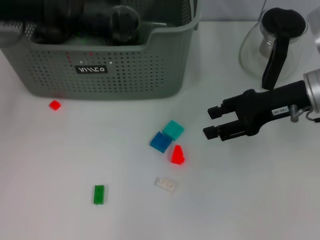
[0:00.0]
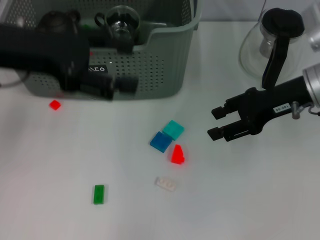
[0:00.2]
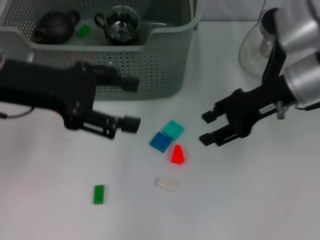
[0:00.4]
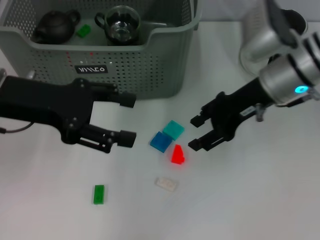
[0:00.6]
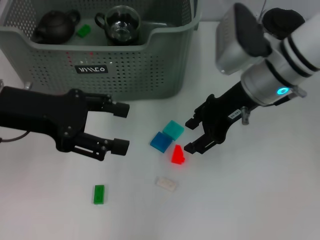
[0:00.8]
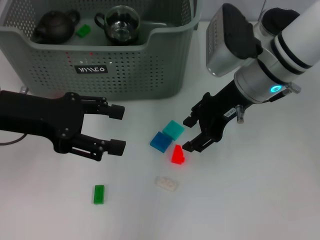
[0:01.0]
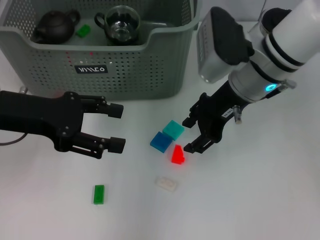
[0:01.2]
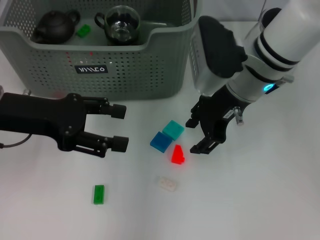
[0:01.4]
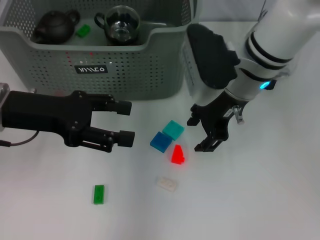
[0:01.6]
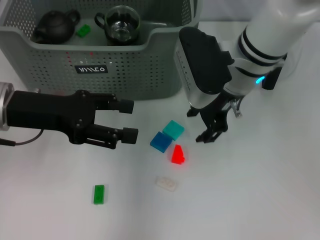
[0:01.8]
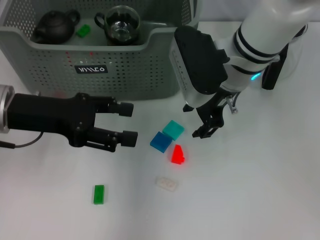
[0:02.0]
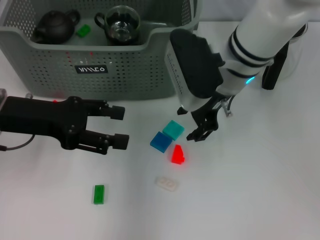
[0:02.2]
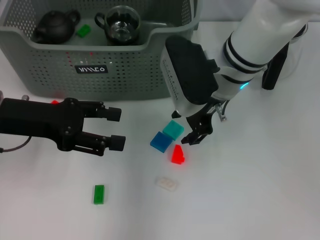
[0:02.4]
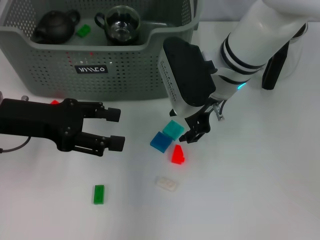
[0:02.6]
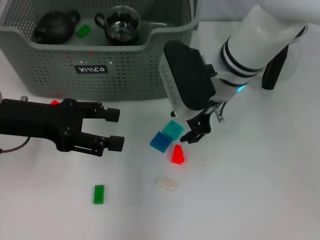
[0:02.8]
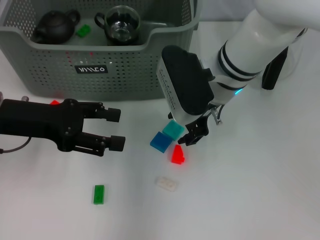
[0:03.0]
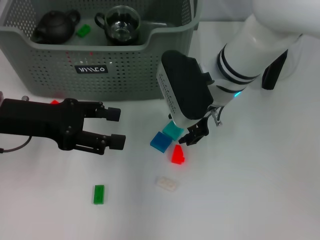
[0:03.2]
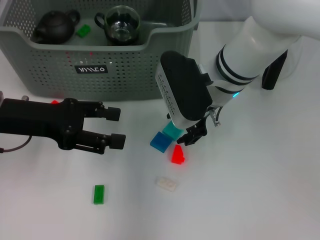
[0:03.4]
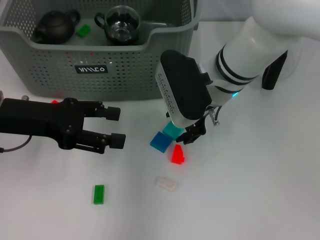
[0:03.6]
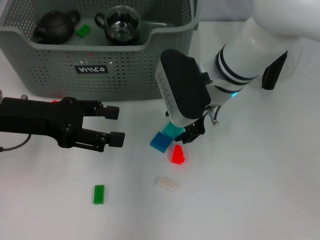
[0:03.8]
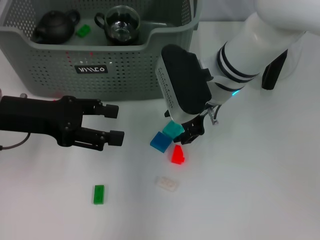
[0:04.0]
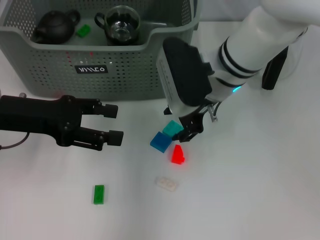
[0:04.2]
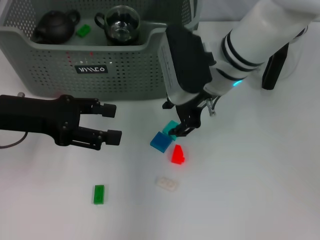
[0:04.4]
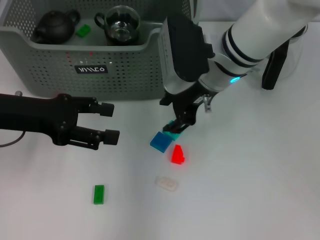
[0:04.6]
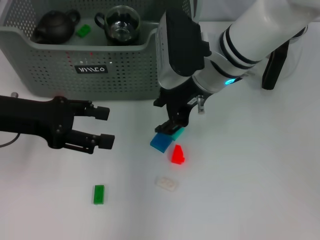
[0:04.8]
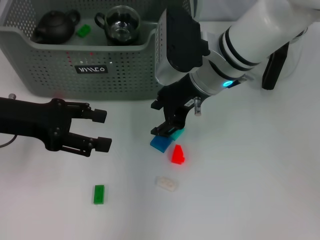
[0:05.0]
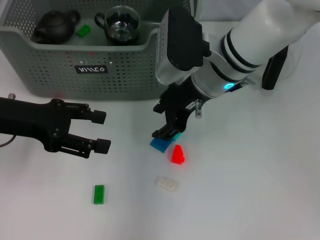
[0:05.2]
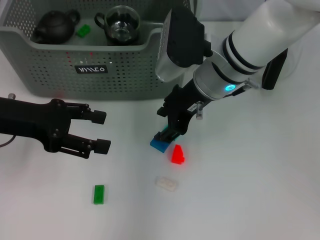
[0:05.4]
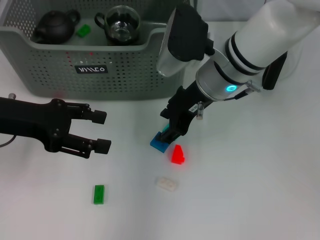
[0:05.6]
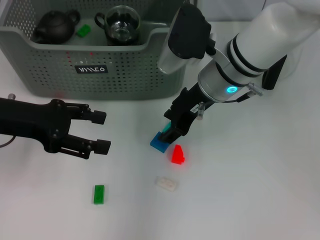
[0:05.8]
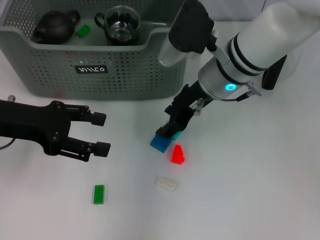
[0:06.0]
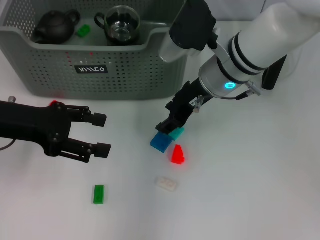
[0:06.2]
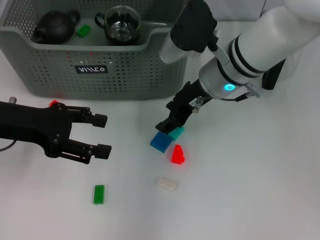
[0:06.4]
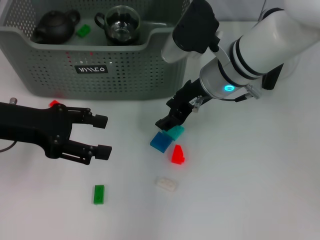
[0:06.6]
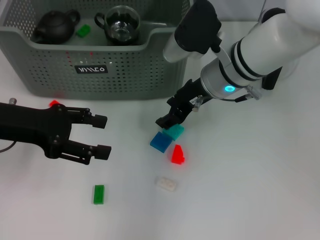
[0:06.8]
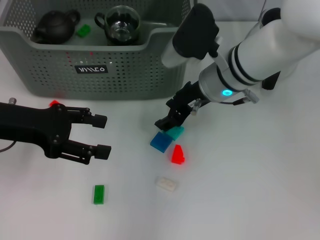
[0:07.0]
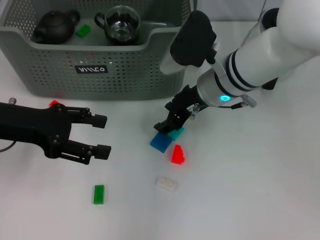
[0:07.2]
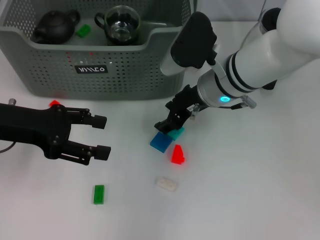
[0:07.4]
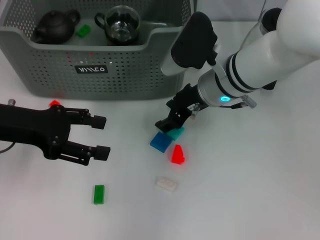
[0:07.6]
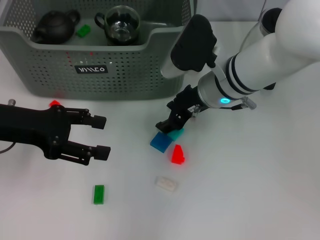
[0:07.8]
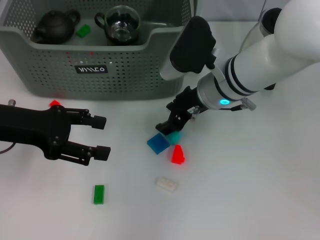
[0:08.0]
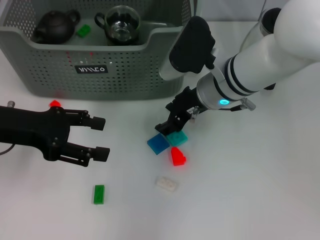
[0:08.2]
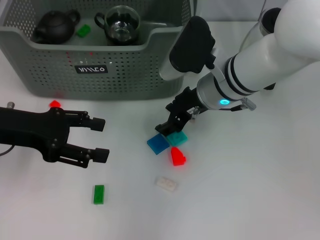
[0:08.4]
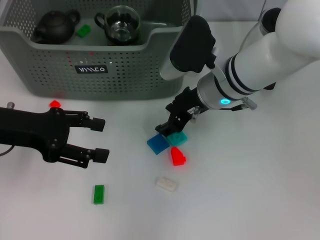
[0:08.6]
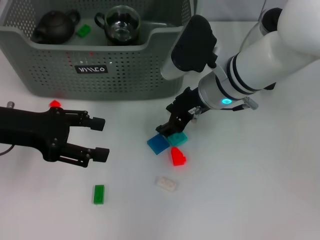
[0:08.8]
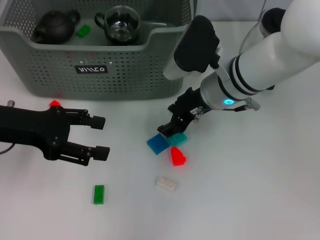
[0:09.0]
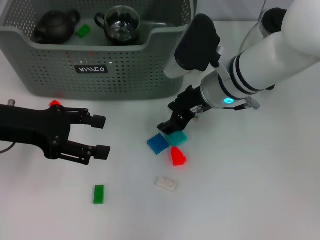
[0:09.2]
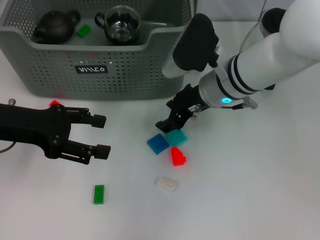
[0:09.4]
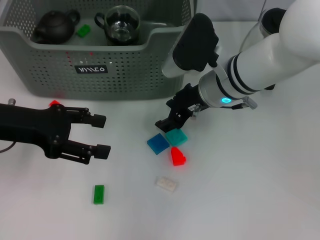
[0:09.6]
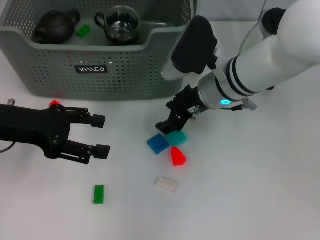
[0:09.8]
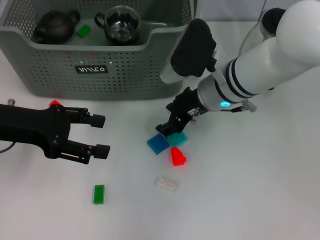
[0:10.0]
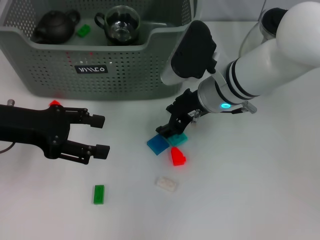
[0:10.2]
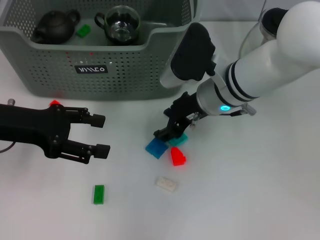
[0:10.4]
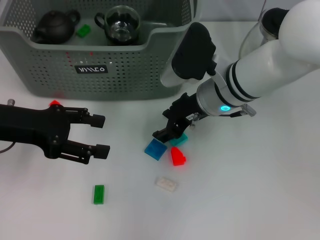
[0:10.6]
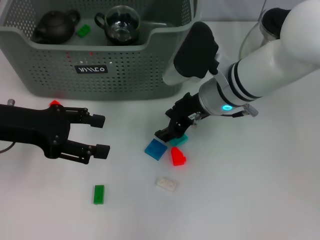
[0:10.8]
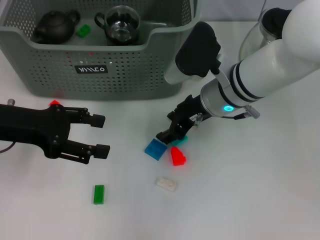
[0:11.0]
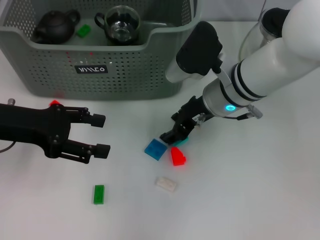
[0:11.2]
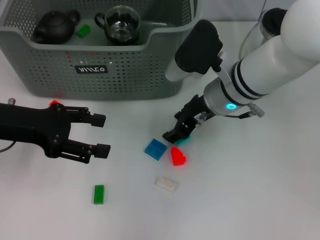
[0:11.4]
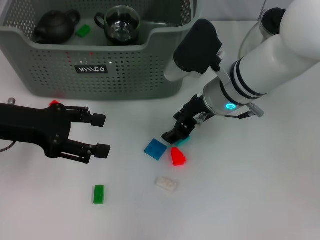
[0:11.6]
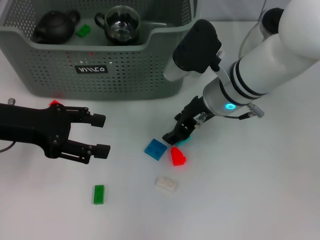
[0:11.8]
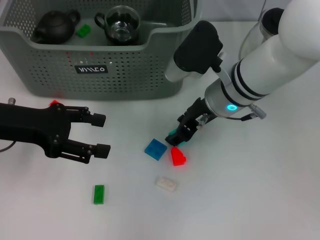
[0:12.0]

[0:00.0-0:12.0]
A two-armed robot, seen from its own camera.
Task of the whole recording: pick up the teacup on the table and place it into the storage bin, pick up the block on the table and place it into the storage bin.
0:00.0 to 0:01.6: The right gripper is displaced to the left by roughly 15 cm. Meanwhile the left gripper travels downward by roughly 10 cm.
0:01.6 to 0:04.4: The grippers stay close to where they were, moving slightly.
0:06.0 to 0:07.6: The grippers stay close to where they were, moving slightly.
0:07.6 to 0:10.4: Neither gripper changes place.
0:10.4 to 0:12.0: The grippers make only small movements.

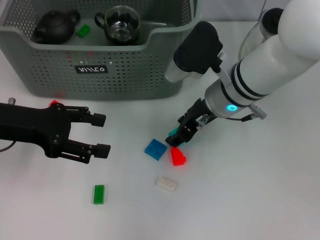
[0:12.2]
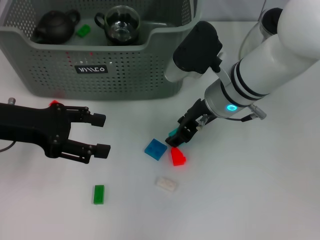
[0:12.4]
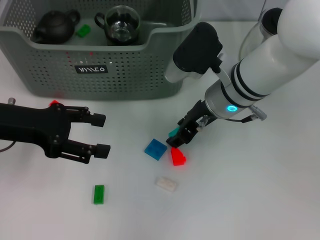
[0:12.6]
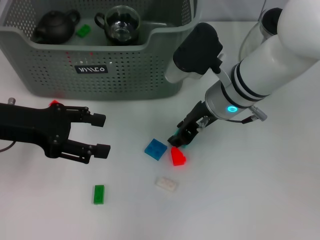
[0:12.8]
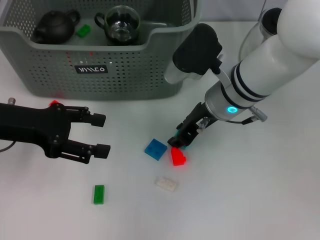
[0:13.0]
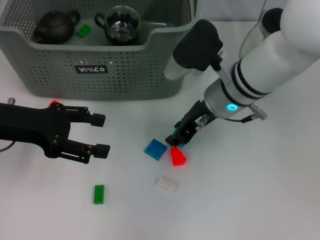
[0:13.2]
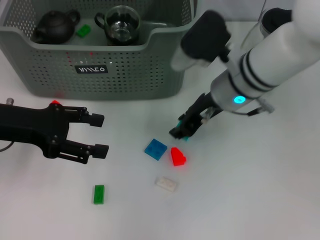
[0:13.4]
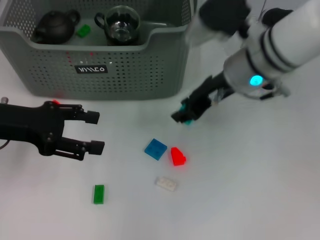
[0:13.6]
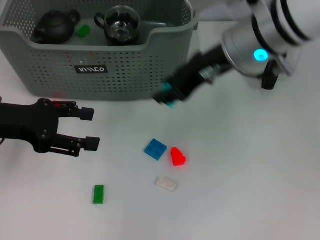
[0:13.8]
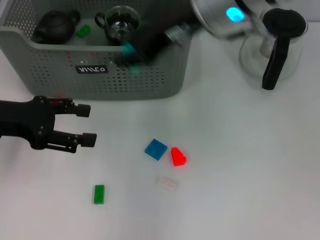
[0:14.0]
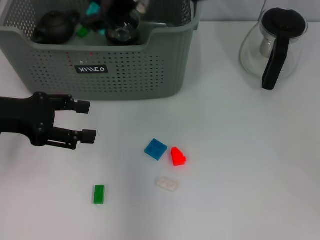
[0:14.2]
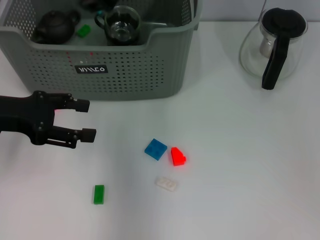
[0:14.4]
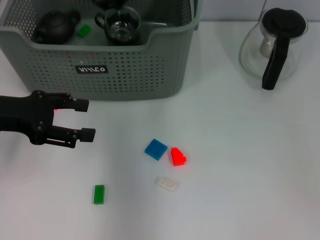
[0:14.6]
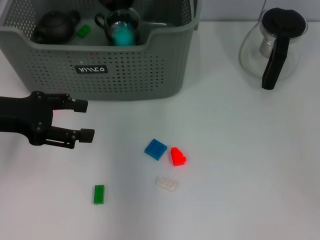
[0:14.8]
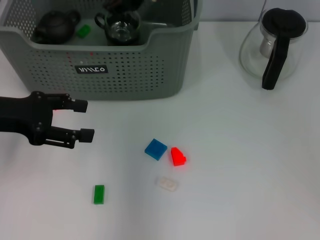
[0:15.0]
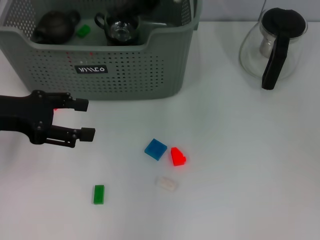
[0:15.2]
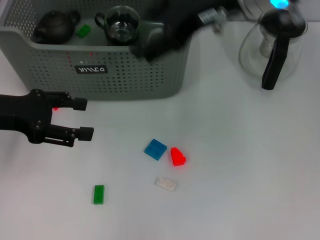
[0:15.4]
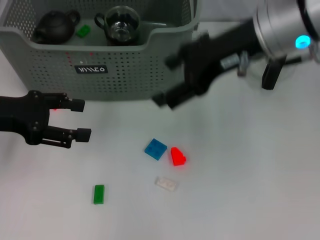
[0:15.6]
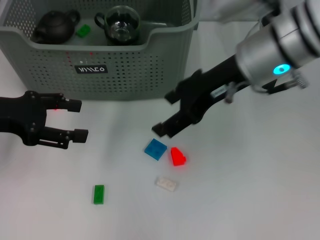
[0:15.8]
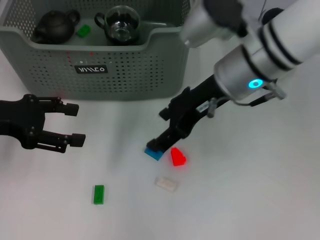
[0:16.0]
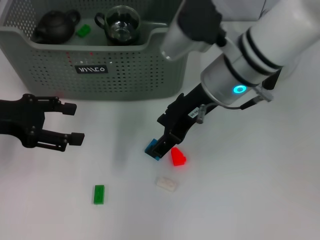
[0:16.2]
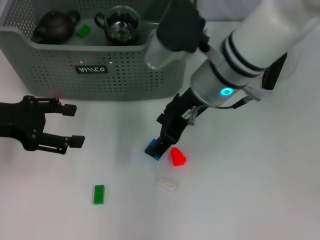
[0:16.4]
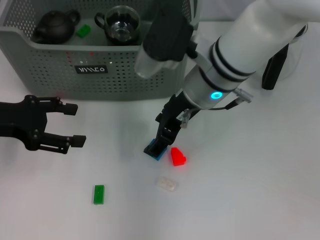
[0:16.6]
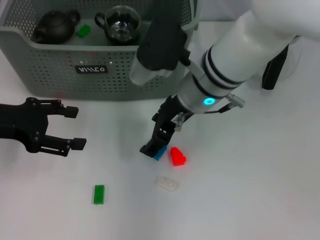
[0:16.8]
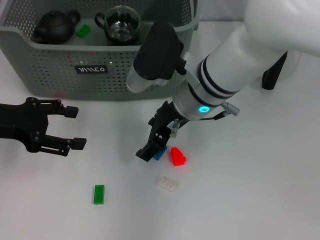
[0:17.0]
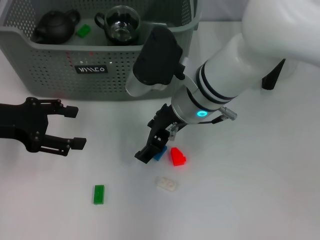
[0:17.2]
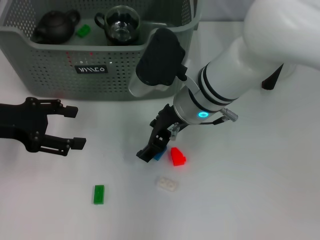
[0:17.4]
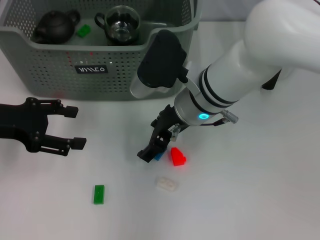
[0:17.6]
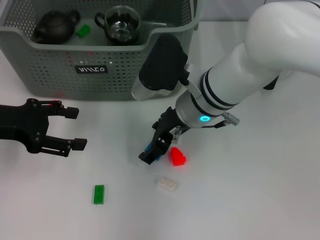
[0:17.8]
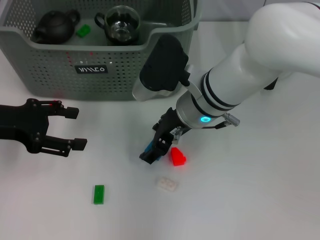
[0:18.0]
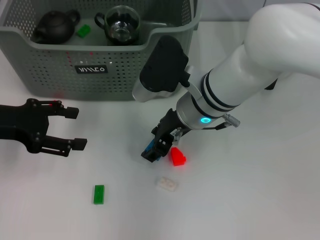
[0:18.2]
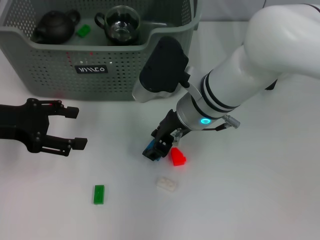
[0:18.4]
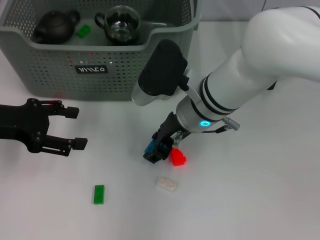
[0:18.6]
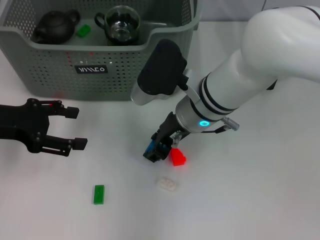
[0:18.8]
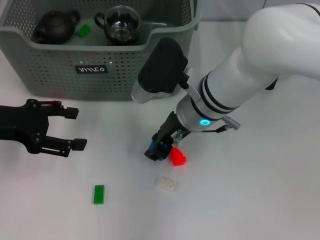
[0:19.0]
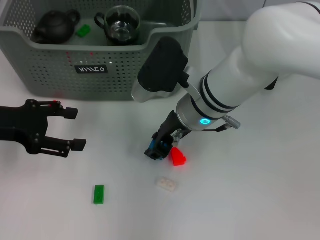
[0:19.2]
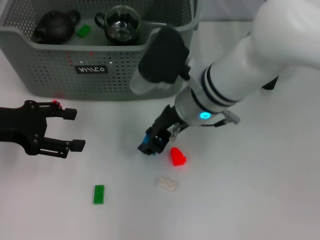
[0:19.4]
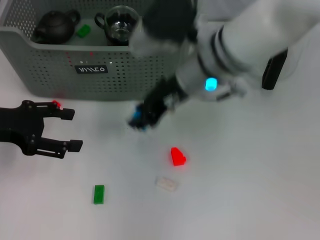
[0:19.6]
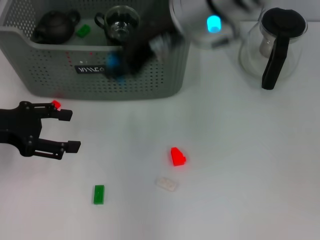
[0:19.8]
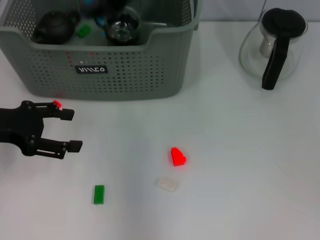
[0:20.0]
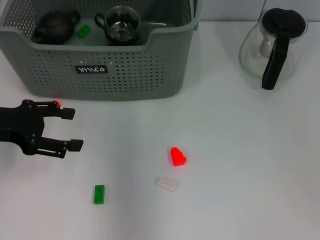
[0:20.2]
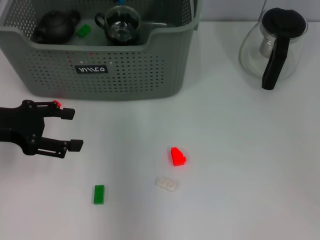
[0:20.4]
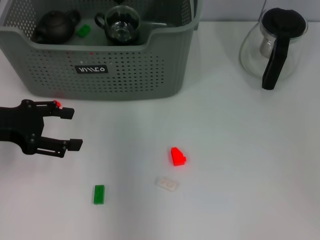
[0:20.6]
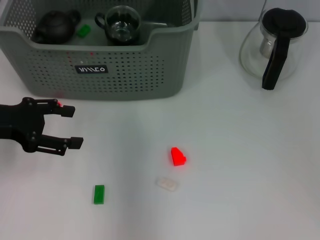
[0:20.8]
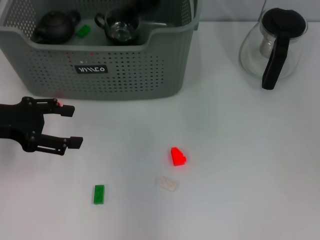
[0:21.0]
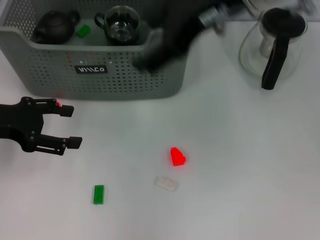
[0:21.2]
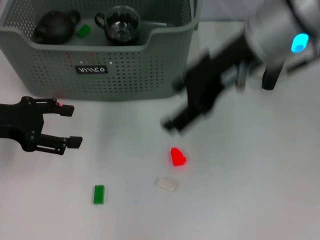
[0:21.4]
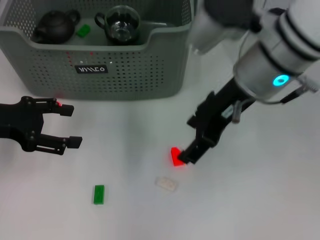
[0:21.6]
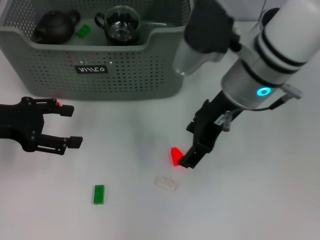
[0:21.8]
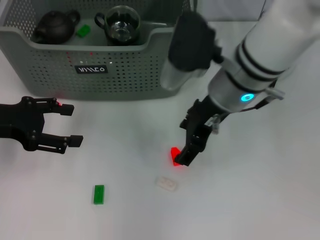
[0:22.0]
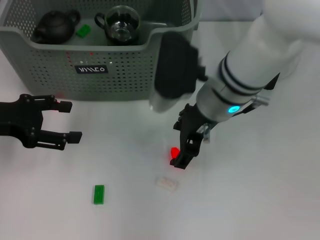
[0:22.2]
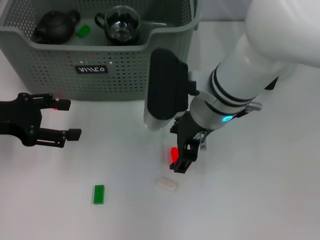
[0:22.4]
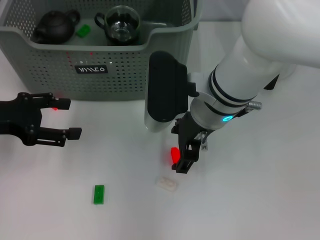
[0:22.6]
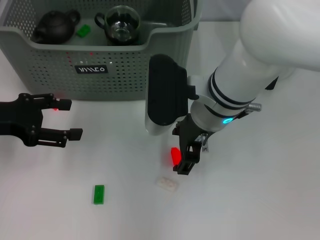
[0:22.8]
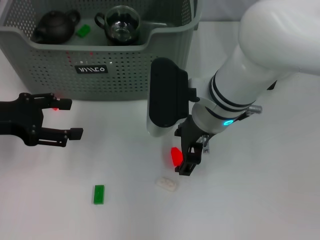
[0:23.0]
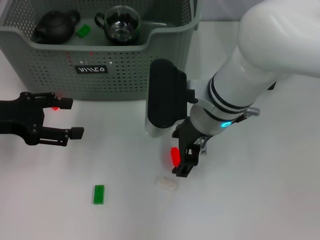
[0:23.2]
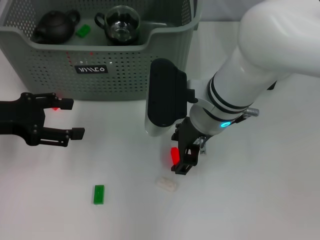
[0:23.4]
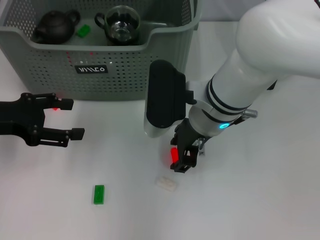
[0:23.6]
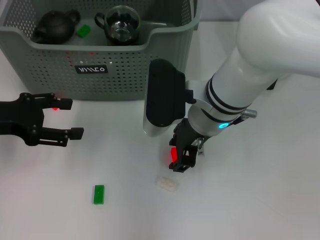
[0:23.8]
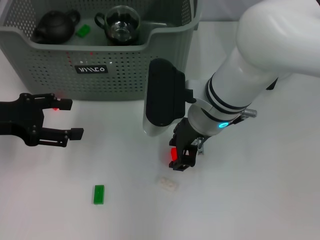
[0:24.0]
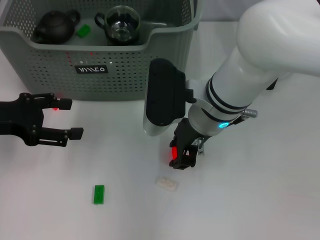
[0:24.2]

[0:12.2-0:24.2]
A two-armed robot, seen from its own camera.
Task of the whole recording: pick up the teacup on the table and place it into the storage bin, pick up the block on the table and place it into the storage bin.
Step, 0:15.2 to 0:18.8: Grasp the dark blue block with right gripper.
Step, 0:19.2 to 0:20.6: Place the dark blue block in the storage box with right gripper.
0:12.2 to 0:13.8: The right gripper shifts roughly 10 cm upward.
0:13.8 to 0:15.2: The right gripper moves upward, about 5 cm, reaches some 10 cm to the left, then returns, and opens its fingers.
0:15.2 to 0:16.6: The right gripper heads downward, covering approximately 10 cm.
0:16.6 to 0:18.2: The grippers make only small movements.
0:18.2 to 0:19.8: The right gripper goes roughly 15 cm upward, and closes its fingers.
0:19.8 to 0:21.2: The right gripper goes about 5 cm to the right, moves some 10 cm forward and comes back, and opens its fingers.
0:21.2 to 0:22.6: The right gripper is displaced downward by about 15 cm.
0:22.6 to 0:24.2: The right gripper closes up.
